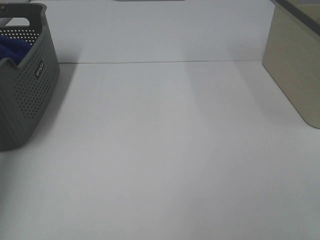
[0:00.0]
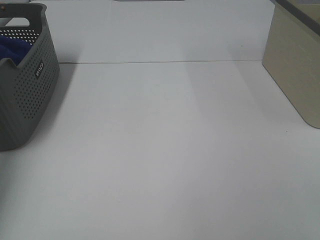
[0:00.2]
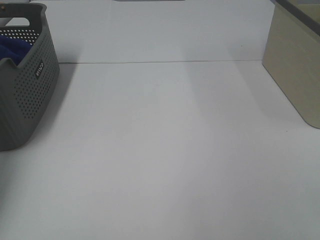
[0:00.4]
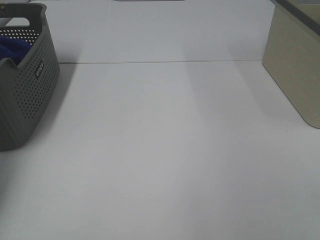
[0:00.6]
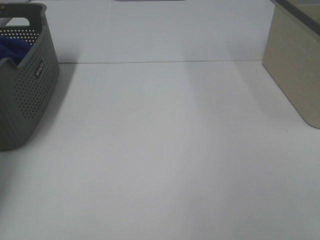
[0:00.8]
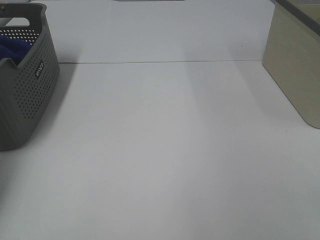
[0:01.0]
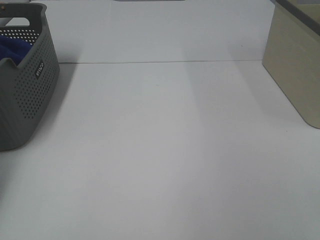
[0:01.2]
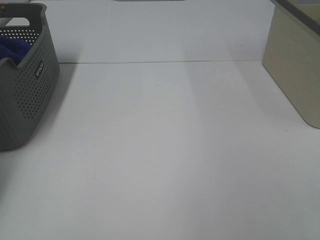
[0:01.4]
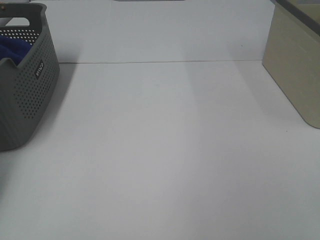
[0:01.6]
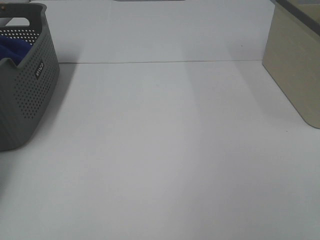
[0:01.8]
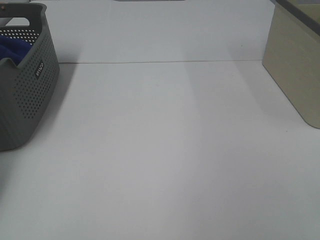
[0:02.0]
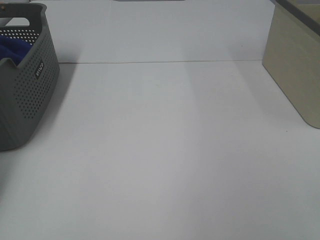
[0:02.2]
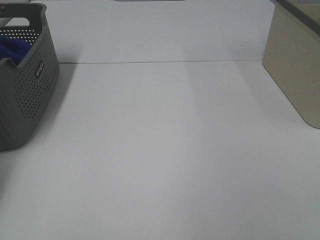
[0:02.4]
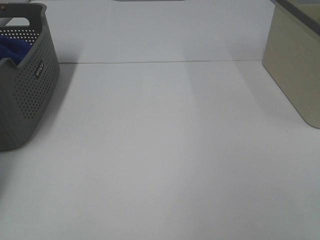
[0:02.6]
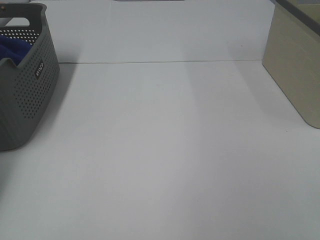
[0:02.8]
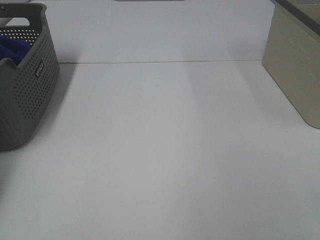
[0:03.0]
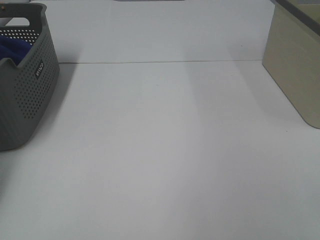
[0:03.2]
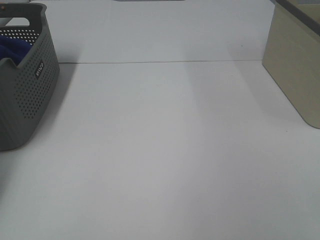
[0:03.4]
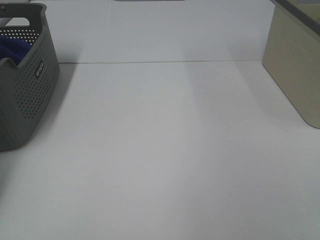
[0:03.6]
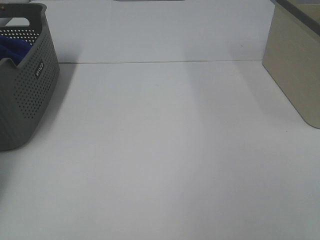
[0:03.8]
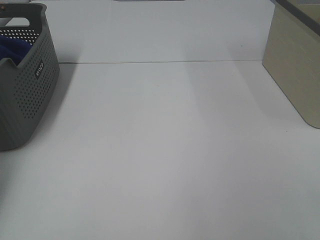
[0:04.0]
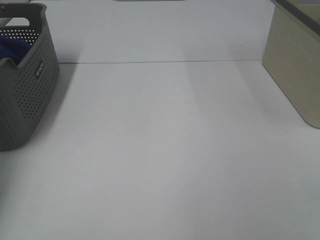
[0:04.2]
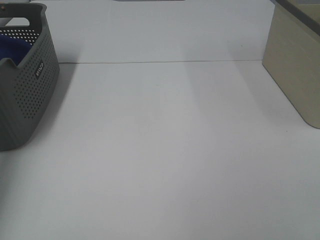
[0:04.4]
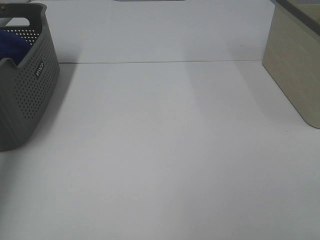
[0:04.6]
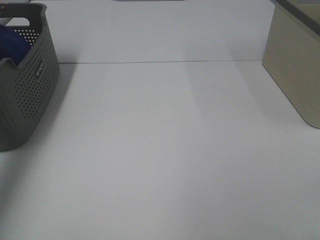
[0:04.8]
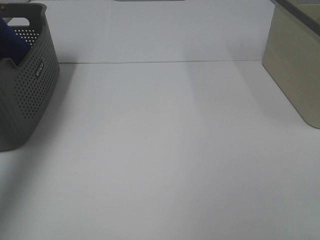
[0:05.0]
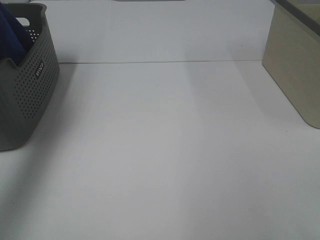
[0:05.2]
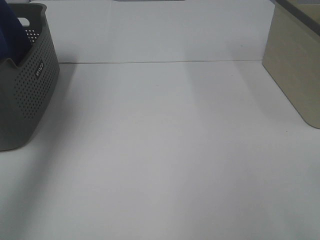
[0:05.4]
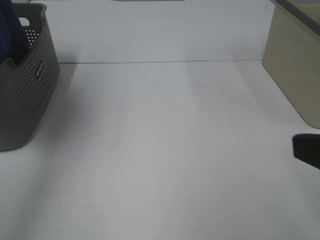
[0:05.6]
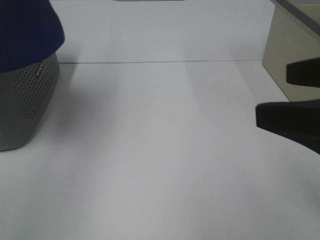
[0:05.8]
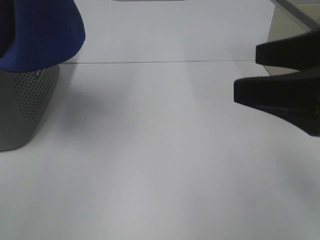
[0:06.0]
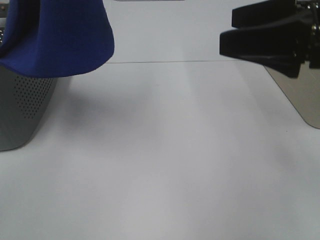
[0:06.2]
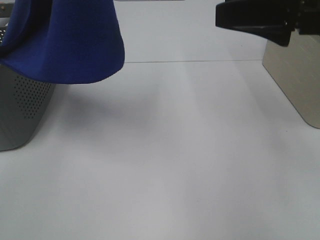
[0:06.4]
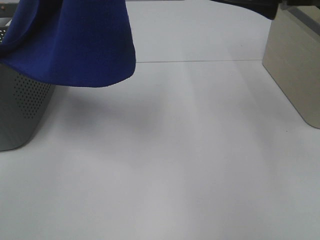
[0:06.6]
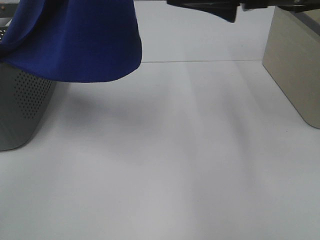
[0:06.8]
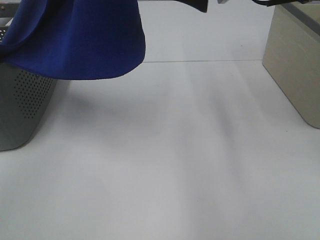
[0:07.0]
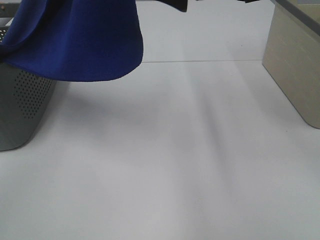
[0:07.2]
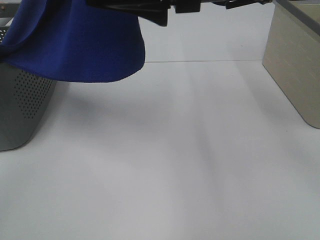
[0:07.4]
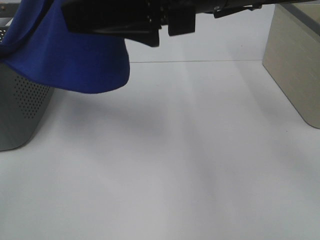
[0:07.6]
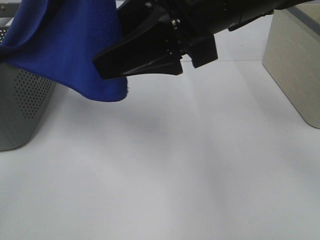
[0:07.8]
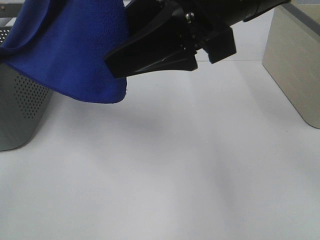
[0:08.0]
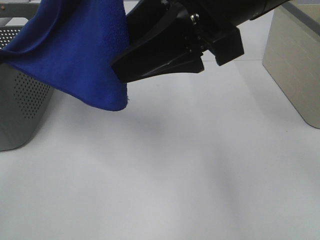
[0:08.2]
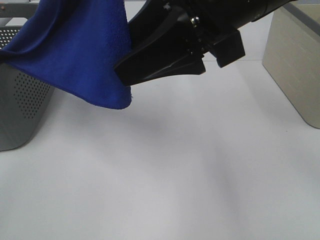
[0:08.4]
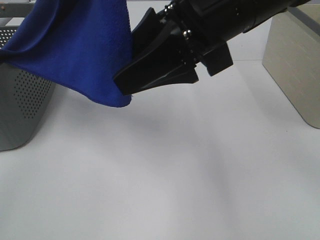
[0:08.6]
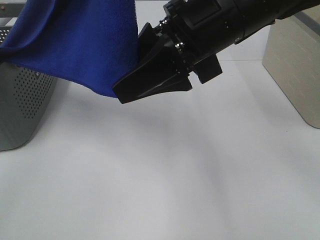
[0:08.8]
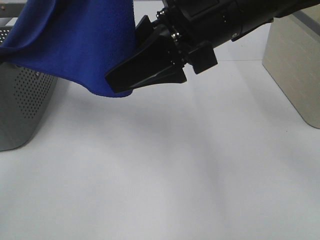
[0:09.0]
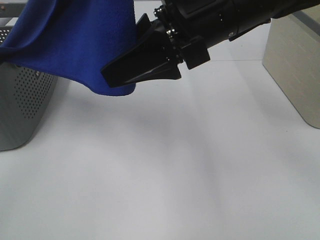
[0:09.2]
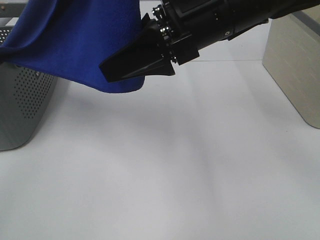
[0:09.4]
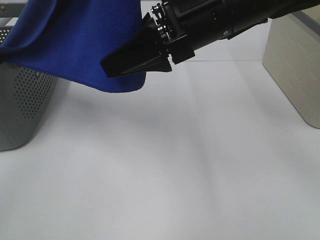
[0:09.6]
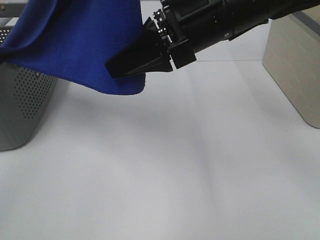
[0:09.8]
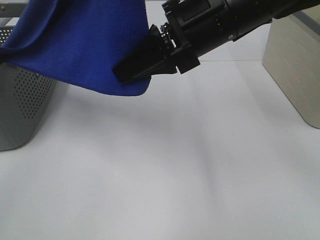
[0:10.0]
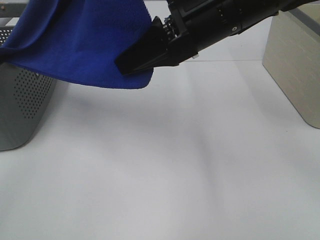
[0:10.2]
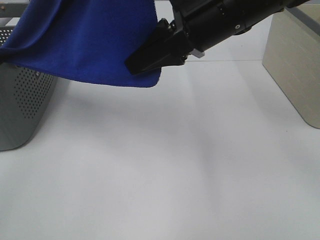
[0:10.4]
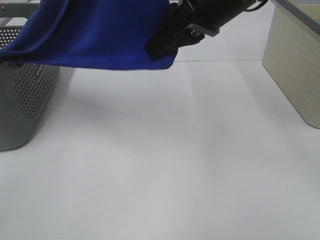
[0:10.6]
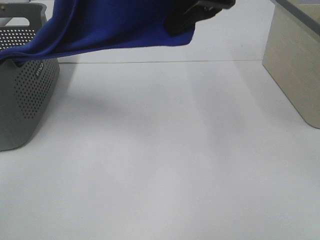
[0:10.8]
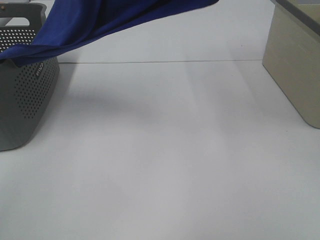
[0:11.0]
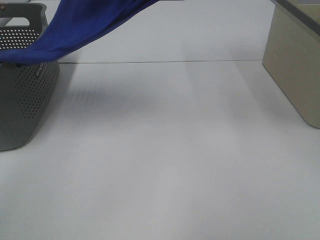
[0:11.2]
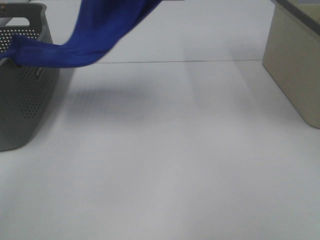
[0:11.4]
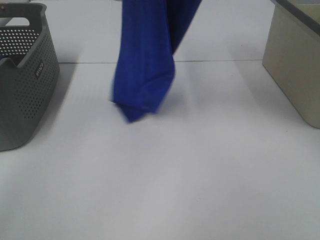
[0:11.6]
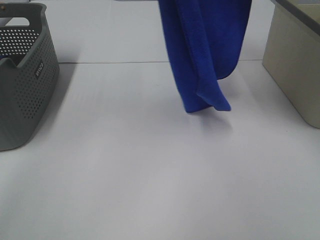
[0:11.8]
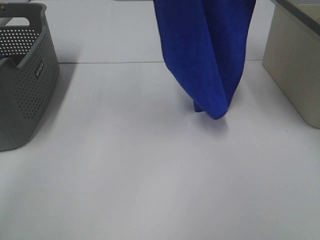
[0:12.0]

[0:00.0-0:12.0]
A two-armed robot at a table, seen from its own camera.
Task of the whole recording: Remove the towel and place it.
Step, 0:04.4 to 0:09.4: Right hand: grab a corner of the blue towel and straighten it.
0:04.4 to 0:06.0: The left gripper moves to the right, upward and backward, about 30 cm, while the right gripper moves forward, roughly 15 cm.
0:06.0 to 0:07.6: The left gripper travels to the right by about 5 cm. Meanwhile the right gripper shifts about 20 cm to the left and forward.
0:09.0 to 0:10.4: The right gripper closes up.
0:10.4 to 0:12.0: The left gripper is displaced forward by about 5 cm; the right gripper travels upward by some 20 cm.

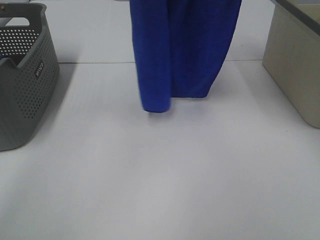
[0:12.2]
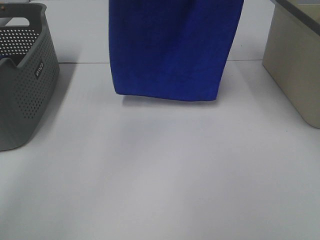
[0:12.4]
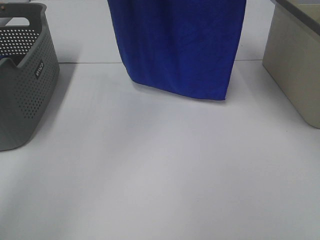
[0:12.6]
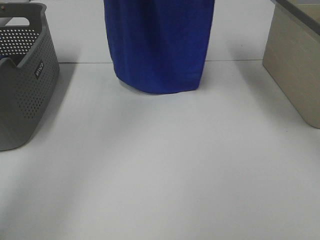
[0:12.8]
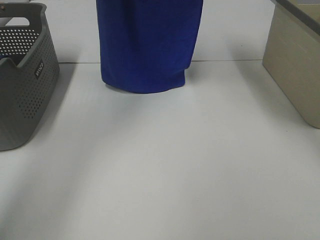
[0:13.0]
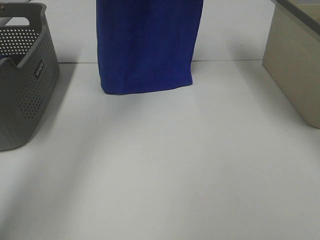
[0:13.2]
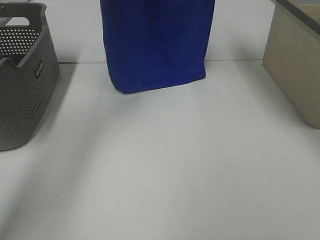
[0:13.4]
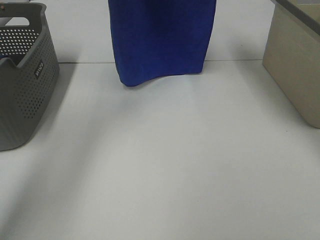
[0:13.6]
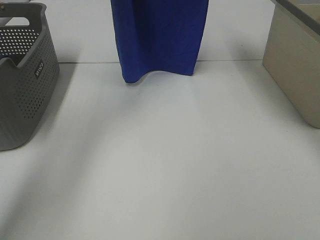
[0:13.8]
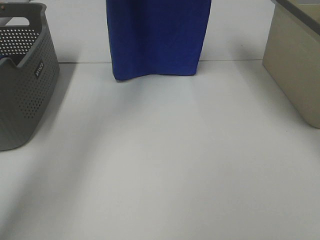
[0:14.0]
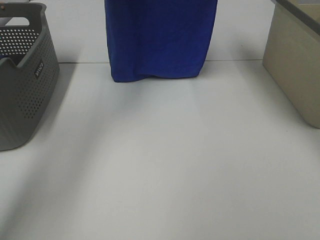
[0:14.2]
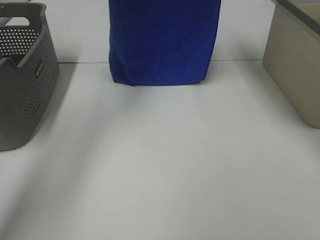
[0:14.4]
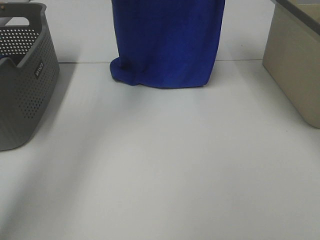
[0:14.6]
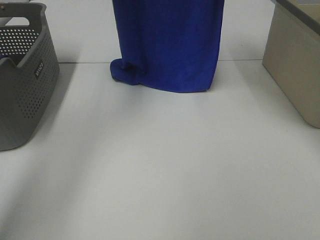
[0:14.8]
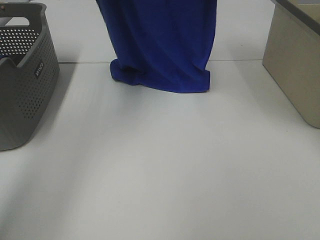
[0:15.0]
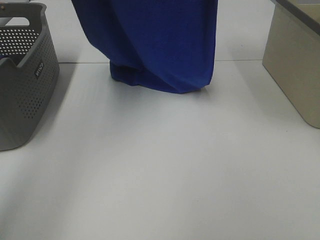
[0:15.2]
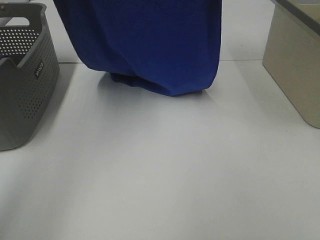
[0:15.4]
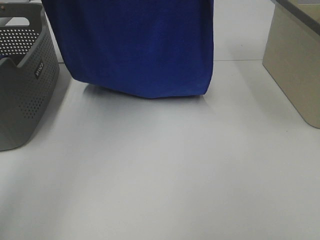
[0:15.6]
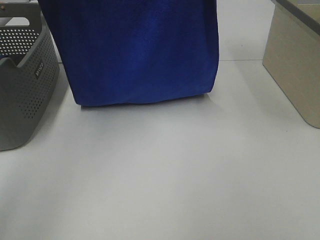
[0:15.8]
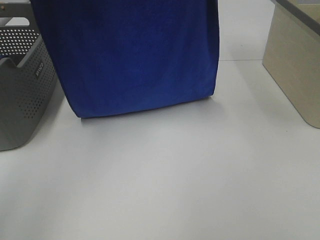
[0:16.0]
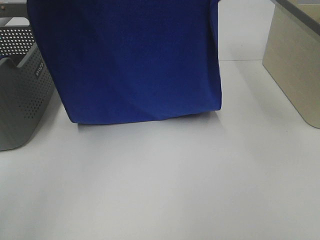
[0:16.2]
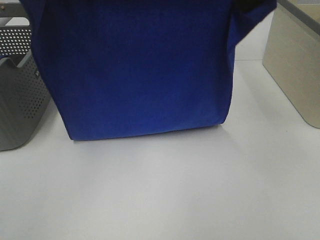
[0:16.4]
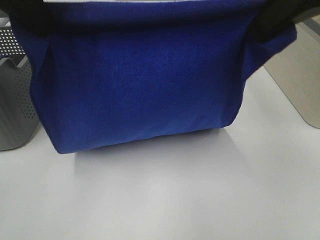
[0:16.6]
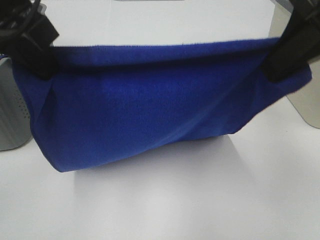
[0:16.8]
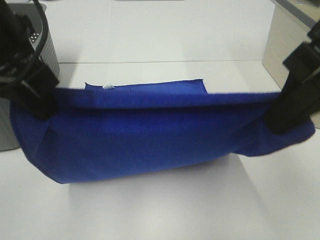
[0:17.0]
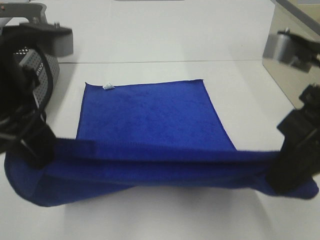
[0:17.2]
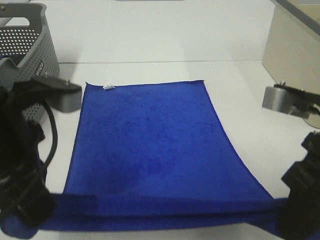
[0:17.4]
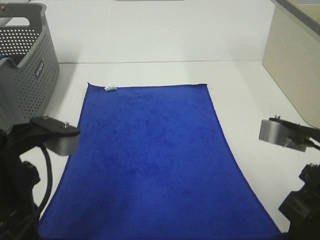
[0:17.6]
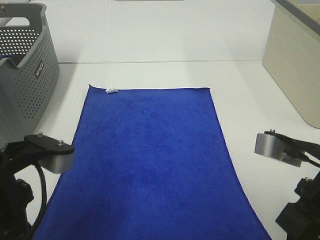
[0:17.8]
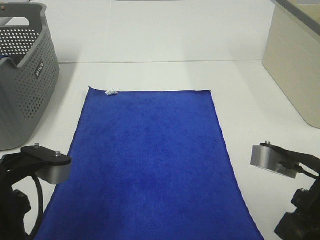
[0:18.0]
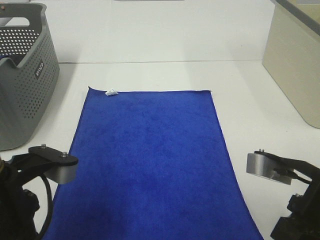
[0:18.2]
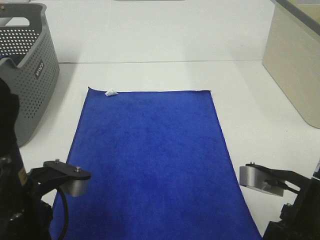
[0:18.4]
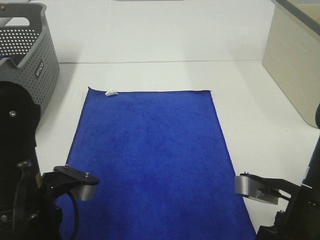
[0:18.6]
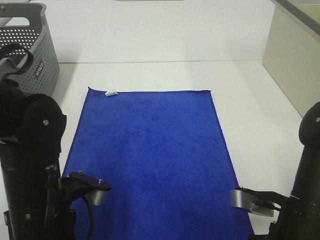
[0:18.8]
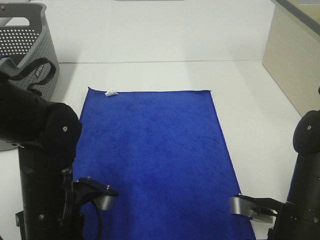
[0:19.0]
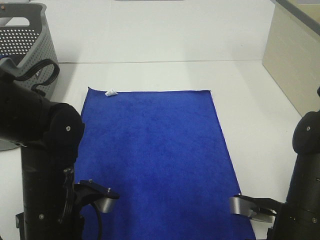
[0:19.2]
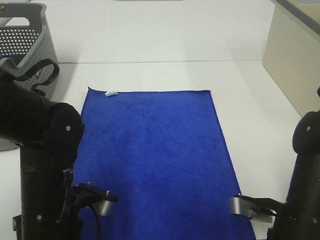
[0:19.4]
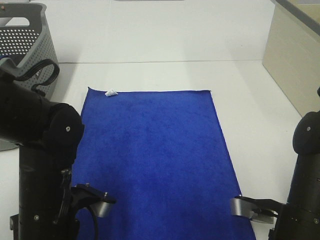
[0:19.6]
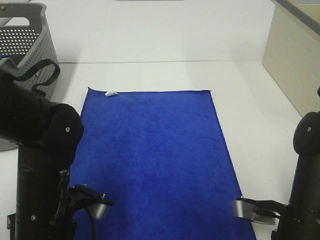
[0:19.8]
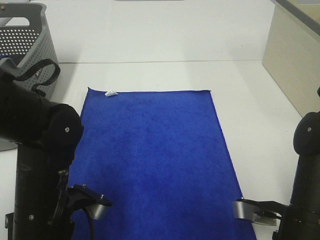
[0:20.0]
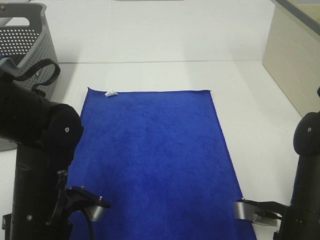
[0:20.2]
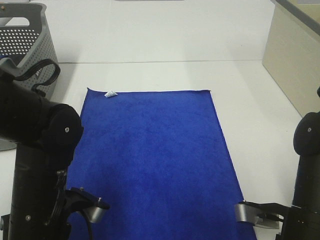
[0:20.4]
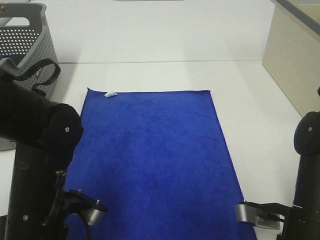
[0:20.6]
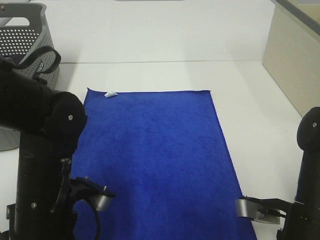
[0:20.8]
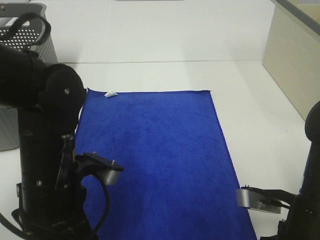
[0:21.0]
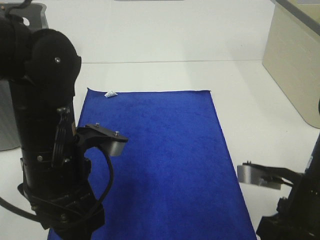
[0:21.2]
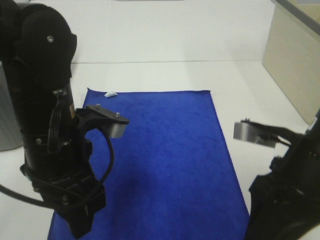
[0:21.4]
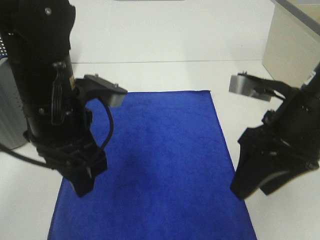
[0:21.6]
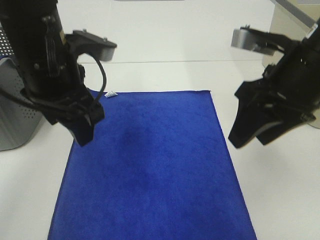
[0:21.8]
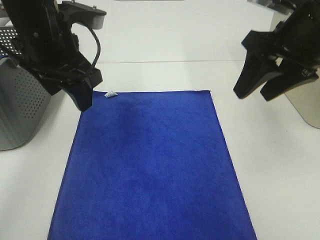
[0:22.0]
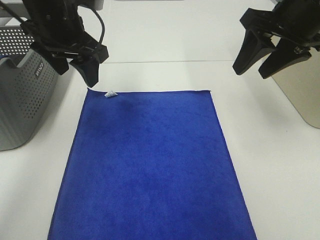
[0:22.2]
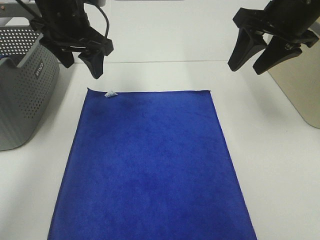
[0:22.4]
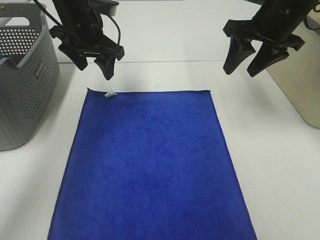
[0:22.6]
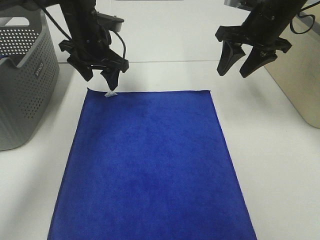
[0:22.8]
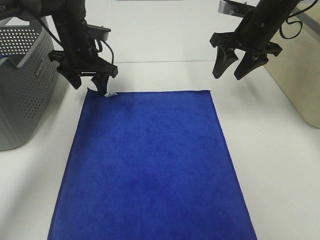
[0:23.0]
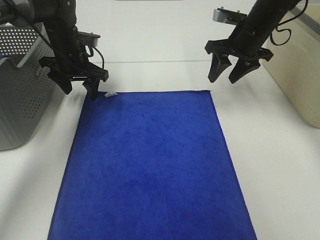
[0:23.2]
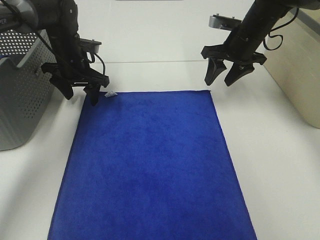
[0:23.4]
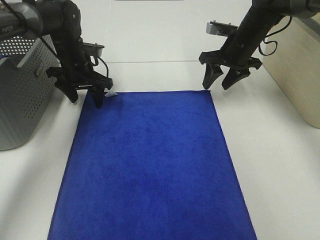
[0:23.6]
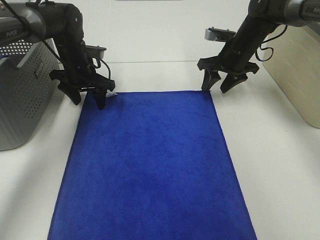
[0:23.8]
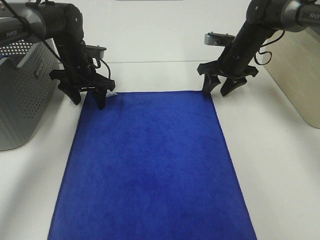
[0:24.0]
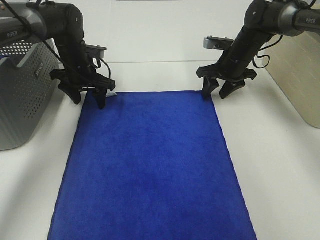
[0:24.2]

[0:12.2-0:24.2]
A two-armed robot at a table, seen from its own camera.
Task of the whole recording: Remove the towel and place it.
Step, 0:12.2 to 0:15.2: Left hand: spread the blue towel flat on the table.
Step, 0:12.2 to 0:15.2: Right hand: spread the blue towel flat on the table.
Step, 0:15.4 to 0:21.8: Left hand:adjust the blue towel.
Step, 0:15.4 to 0:21.8: Right hand:adjust the blue towel.
0:12.2 to 0:13.8: The grippers both shift forward and downward by approximately 15 cm.
0:13.8 to 0:15.2: The grippers both shift backward by some 10 cm.
0:15.2 to 0:16.6: The grippers both shift backward and downward by about 15 cm.
0:16.6 to 0:18.2: The grippers both shift downward and backward by roughly 25 cm.
0:18.2 to 0:19.8: Both grippers move downward, some 10 cm.
0:19.8 to 0:21.2: The two grippers go some 5 cm upward. The right gripper opens up; the left gripper opens.
0:21.2 to 0:22.6: The left gripper goes roughly 25 cm forward; the right gripper goes approximately 25 cm forward and upward.
0:22.6 to 0:24.2: The left gripper moves downward, about 10 cm. Meanwhile the right gripper shifts about 20 cm downward and forward.
